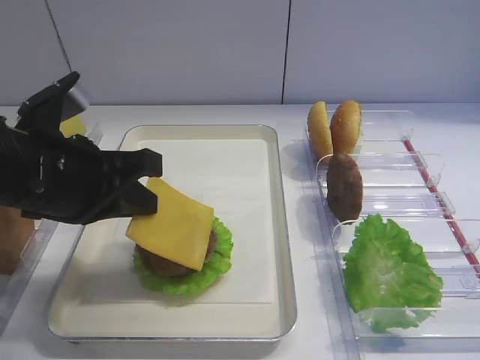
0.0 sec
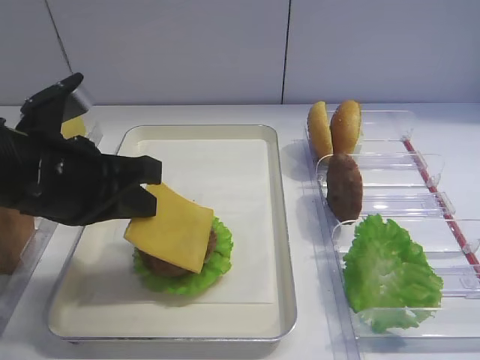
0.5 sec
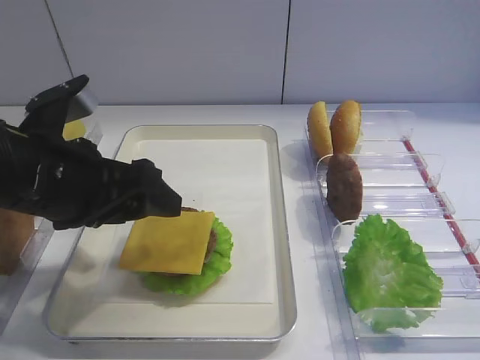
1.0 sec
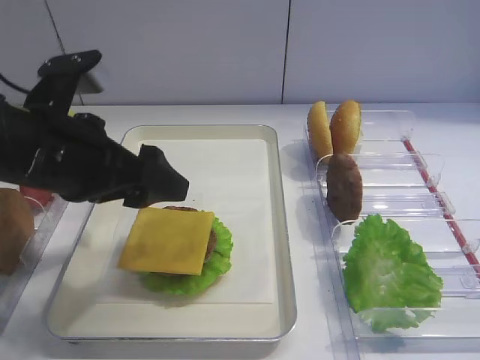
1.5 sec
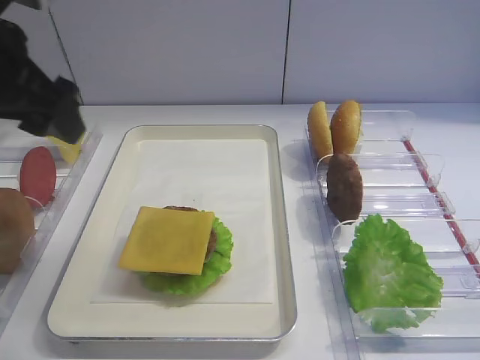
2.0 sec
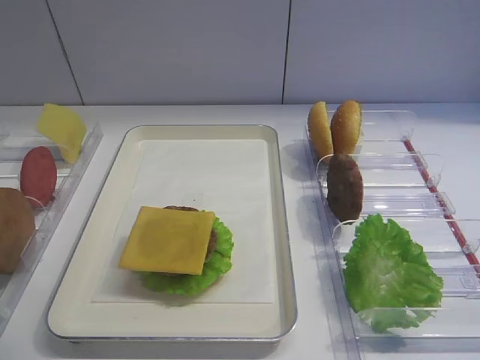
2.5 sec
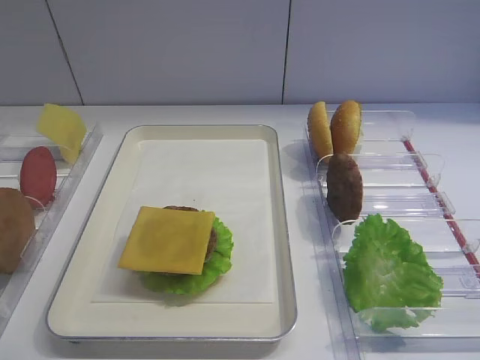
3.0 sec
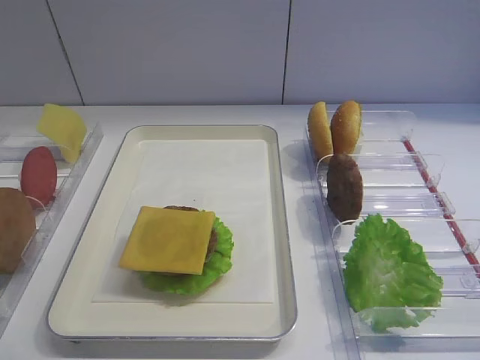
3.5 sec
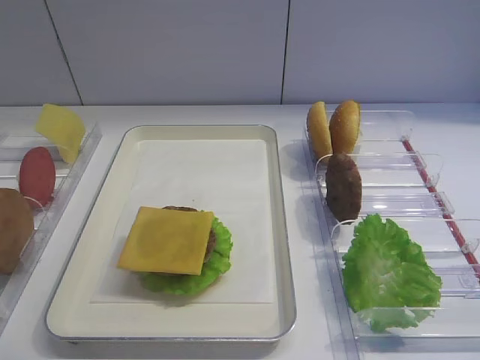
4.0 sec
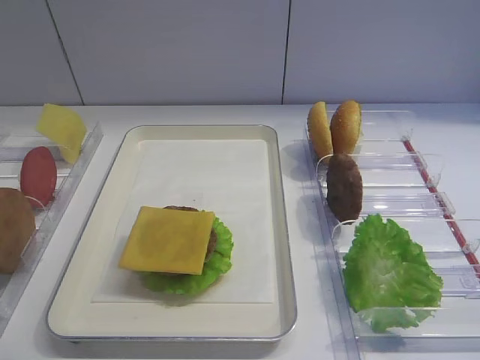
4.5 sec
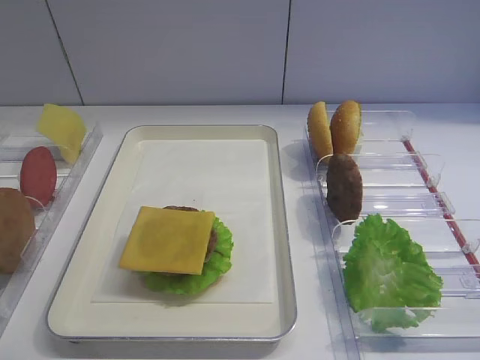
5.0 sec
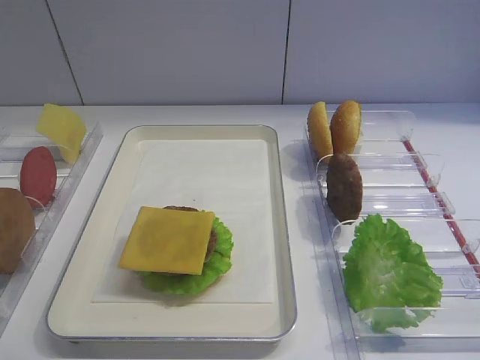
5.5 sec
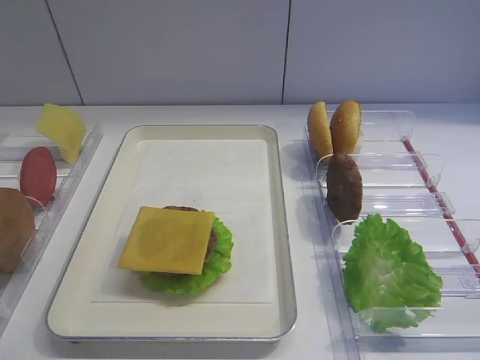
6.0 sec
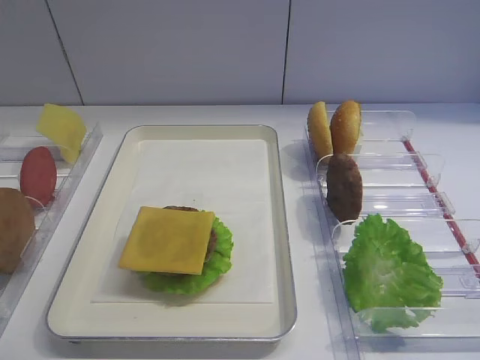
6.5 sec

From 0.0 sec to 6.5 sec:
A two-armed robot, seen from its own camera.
From 0.0 sec to 2.0 sec: The left gripper is displaced upward by approximately 10 cm, and opens up.
From 2.0 sec to 4.5 sec: The left gripper moves backward, some 25 cm.

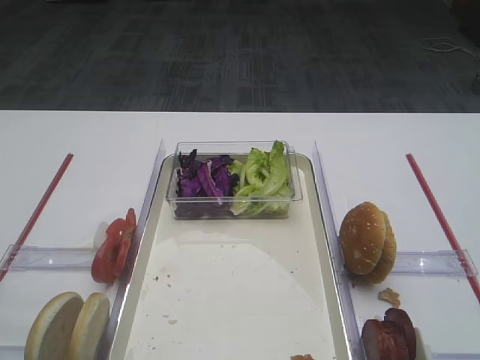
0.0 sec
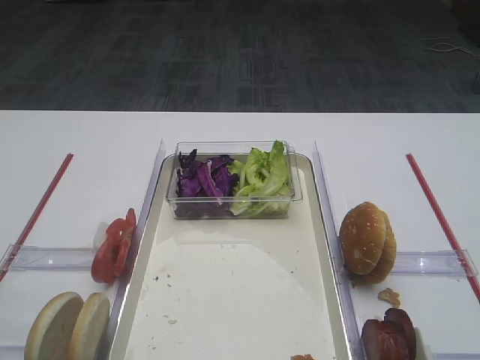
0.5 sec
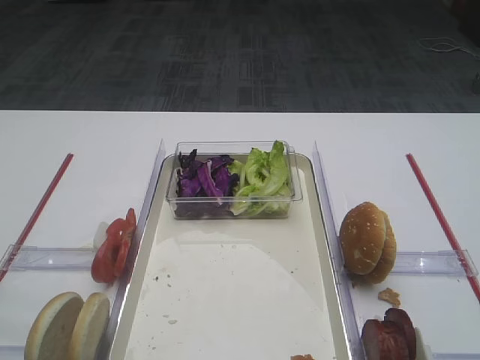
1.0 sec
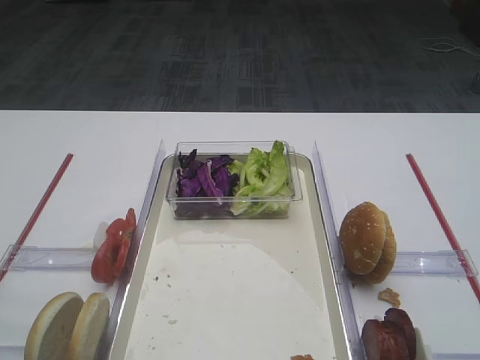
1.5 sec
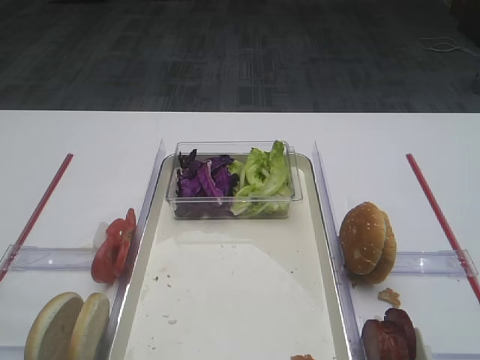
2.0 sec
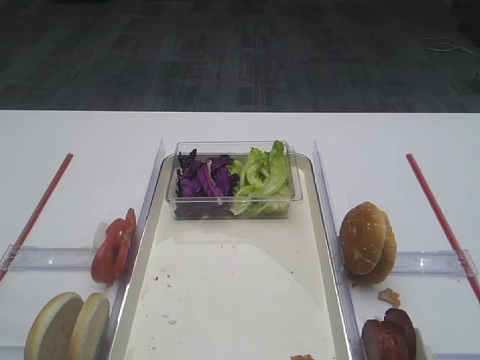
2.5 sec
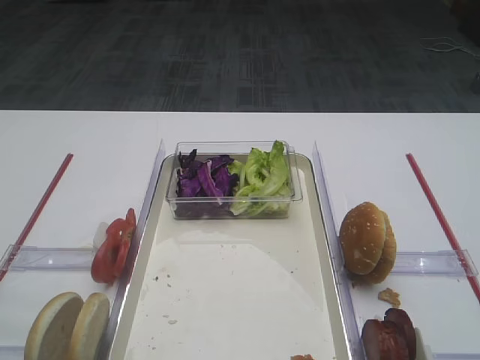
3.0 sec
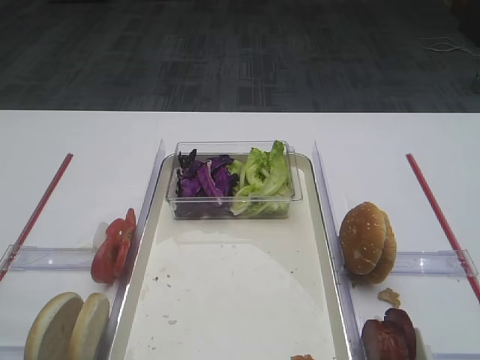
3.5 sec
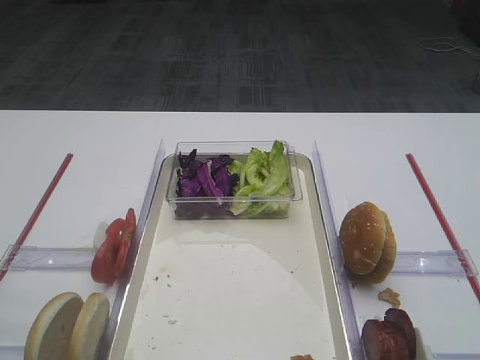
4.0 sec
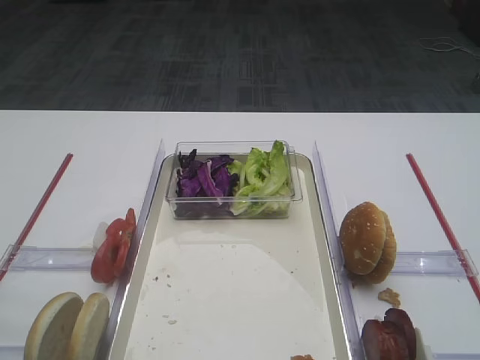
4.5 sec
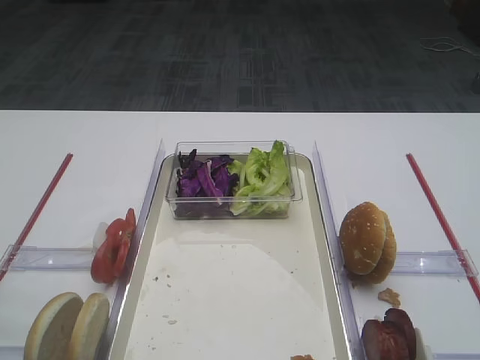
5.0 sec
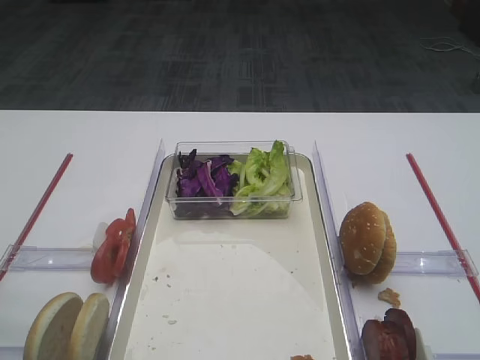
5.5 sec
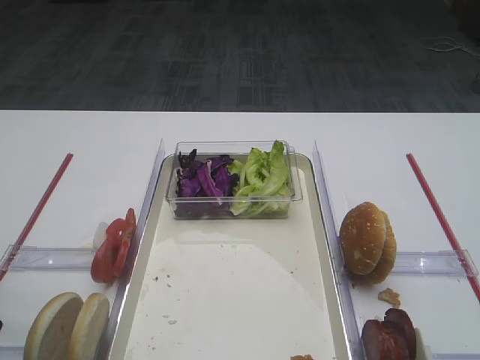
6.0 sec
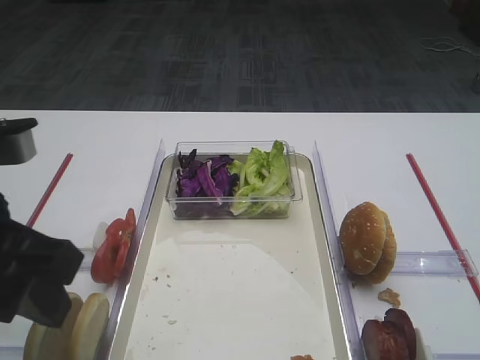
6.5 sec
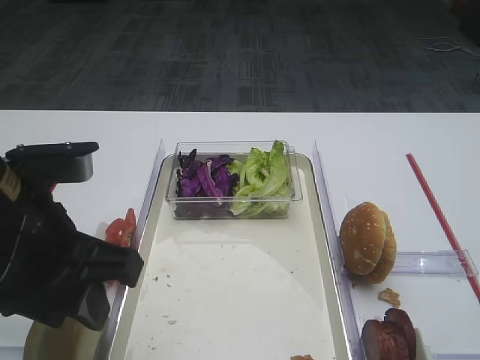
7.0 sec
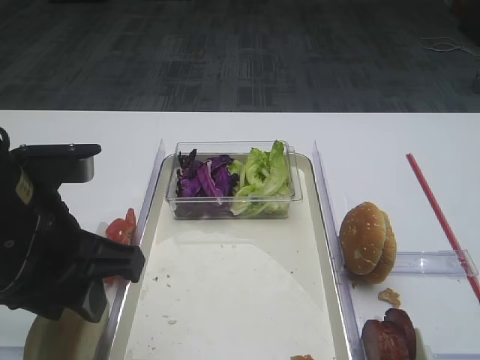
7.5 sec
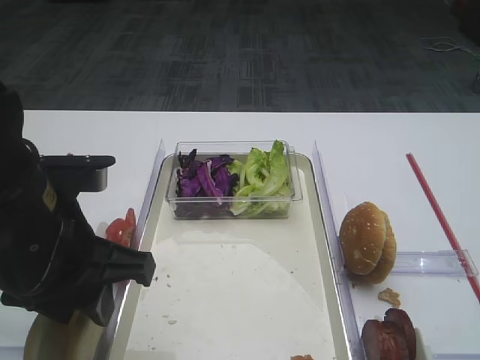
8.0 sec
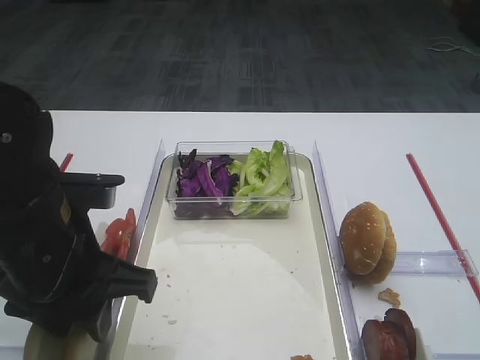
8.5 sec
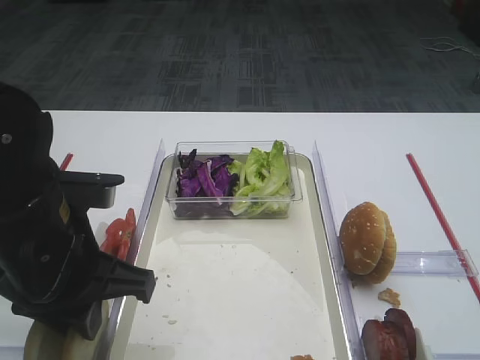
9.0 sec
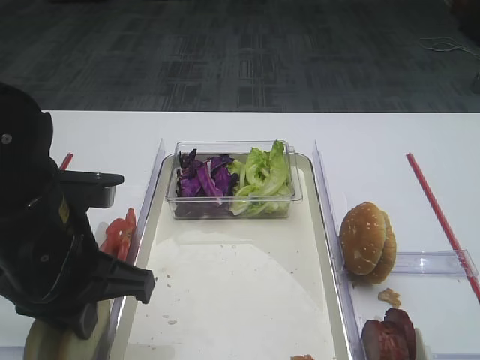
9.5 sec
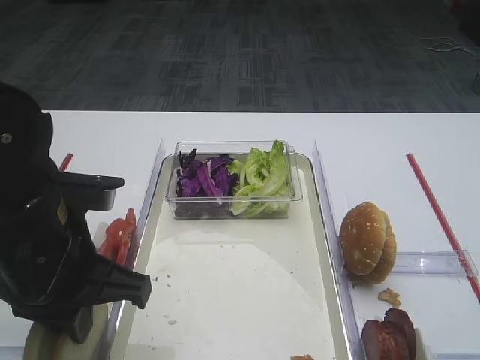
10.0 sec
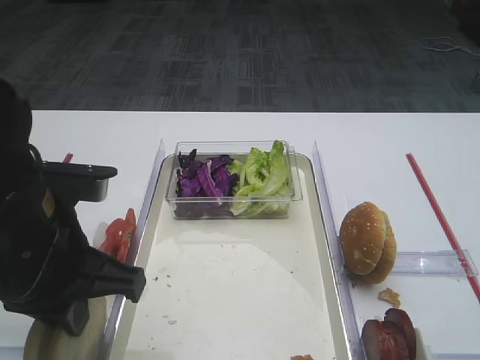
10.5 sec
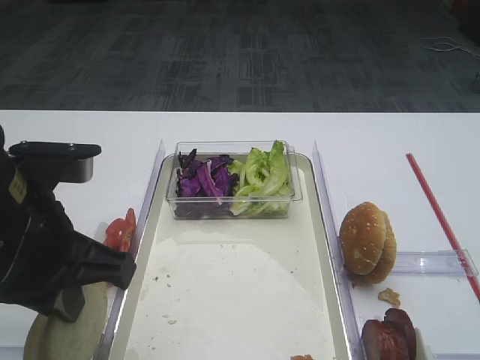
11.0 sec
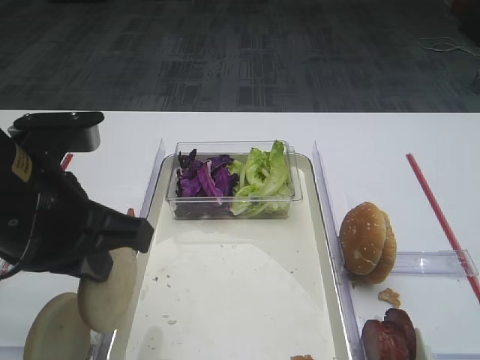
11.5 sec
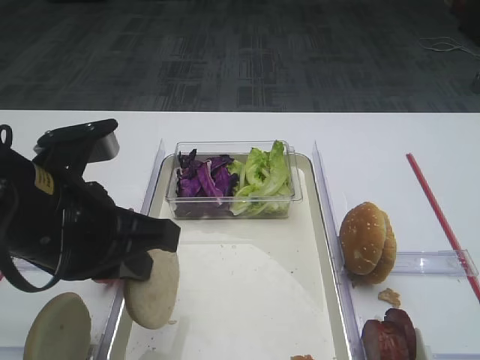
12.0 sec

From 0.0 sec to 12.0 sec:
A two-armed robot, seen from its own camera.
Step, from 0.0 sec to 9.0 sec: Pick up the bread slice with the left gripper.
From 6.0 sec to 8.0 sec: The left gripper goes about 10 cm to the right and forward.
From 8.0 sec to 10.0 sec: The left gripper closes its fingers.

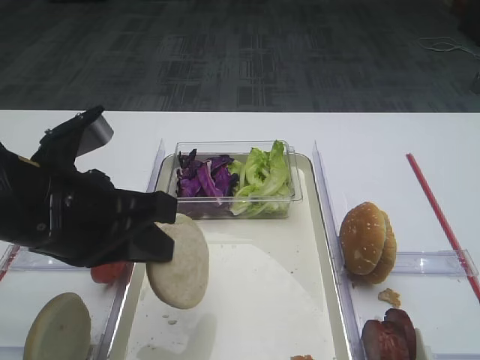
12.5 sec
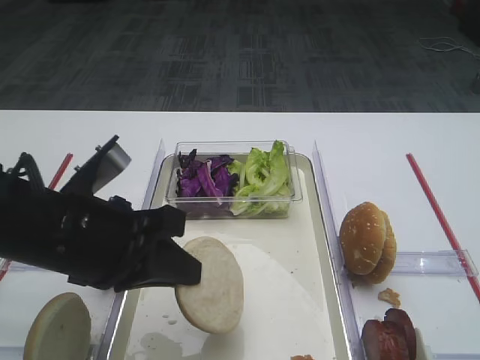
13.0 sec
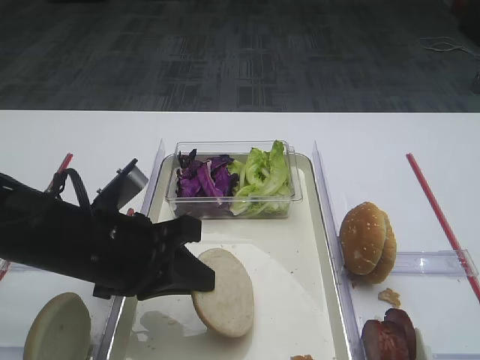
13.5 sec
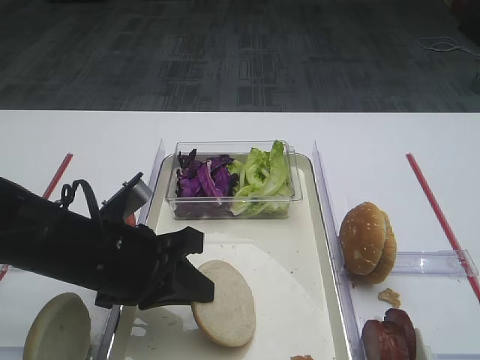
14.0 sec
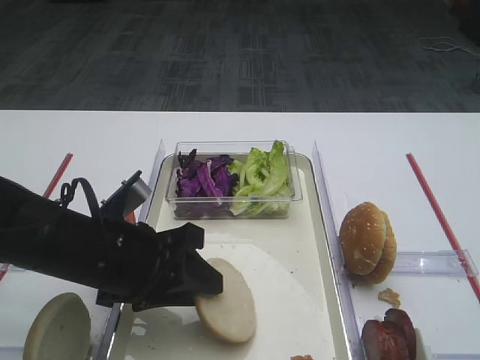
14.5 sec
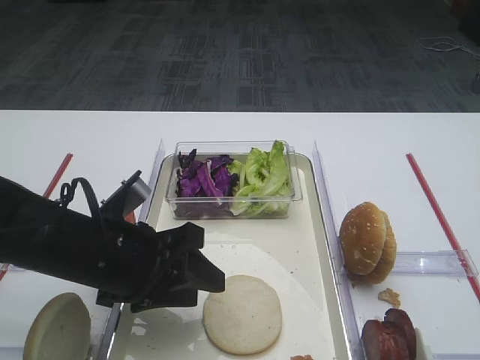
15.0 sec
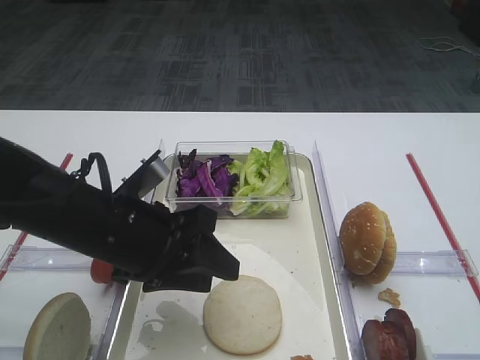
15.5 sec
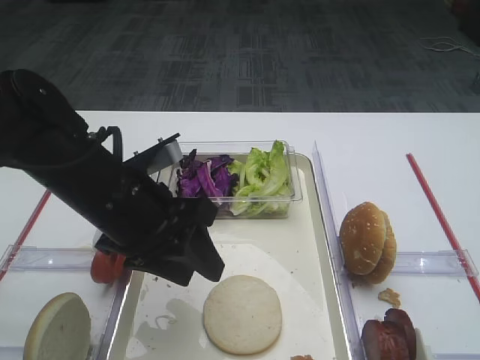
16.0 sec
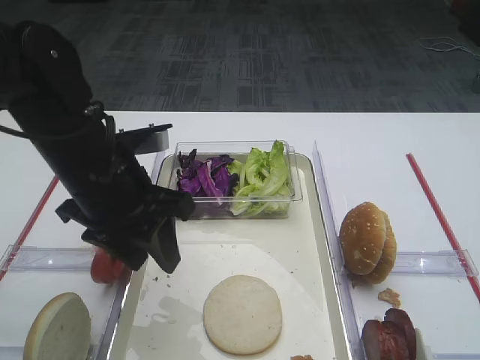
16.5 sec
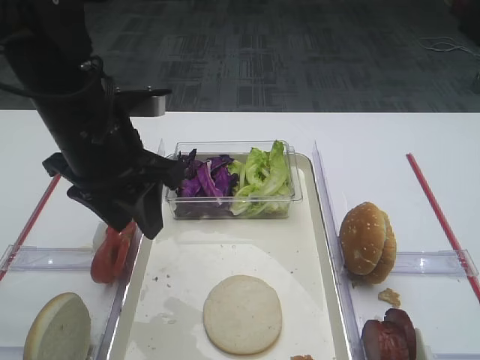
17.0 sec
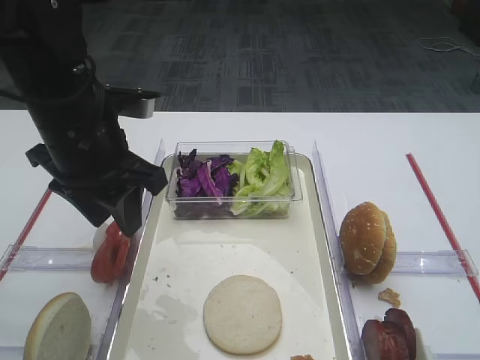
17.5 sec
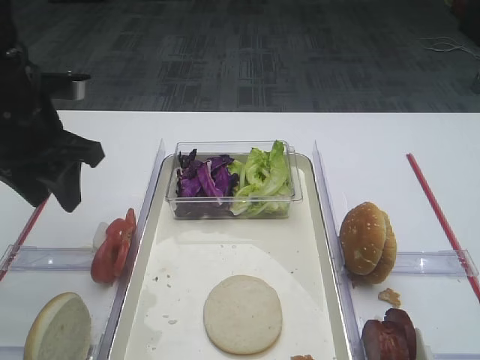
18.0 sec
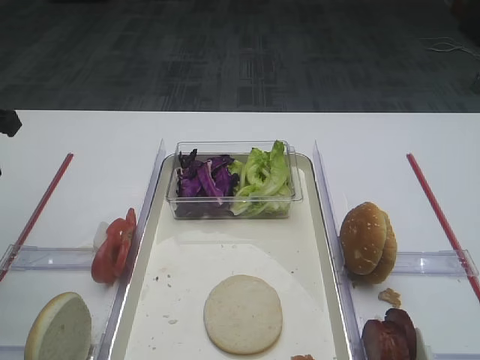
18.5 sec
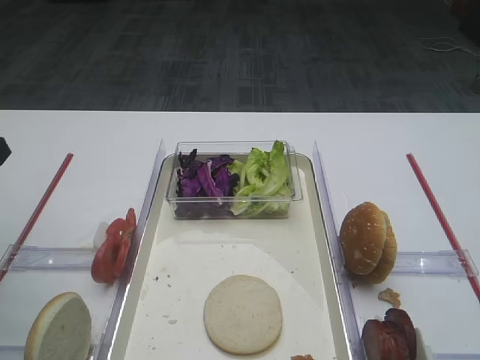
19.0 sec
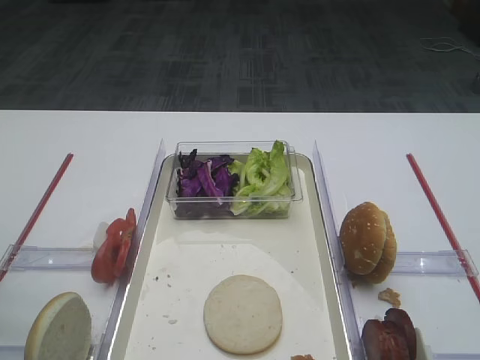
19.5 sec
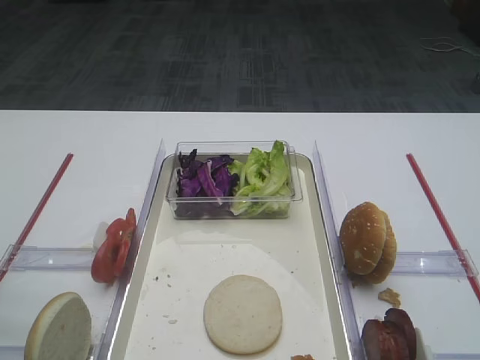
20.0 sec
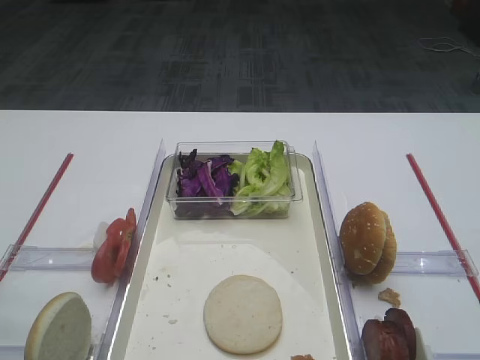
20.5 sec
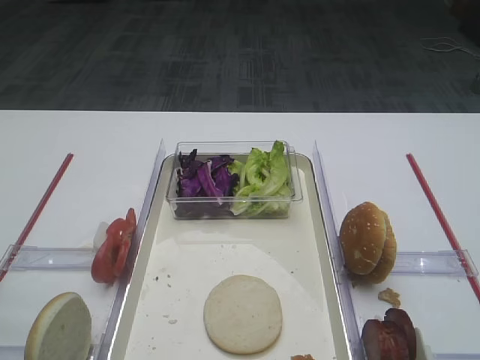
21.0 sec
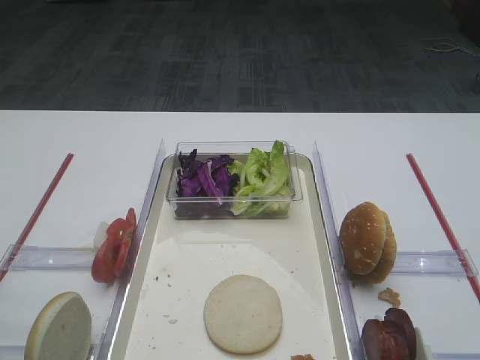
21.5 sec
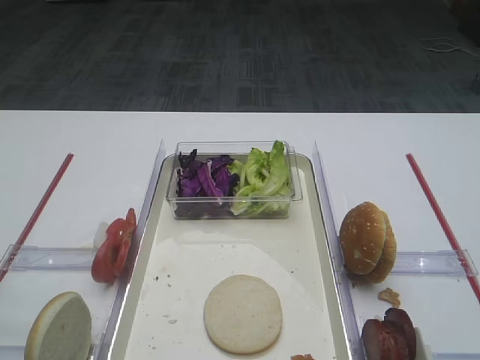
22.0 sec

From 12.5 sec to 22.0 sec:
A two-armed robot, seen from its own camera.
Step, from 12.5 sec to 18.5 sec: Place the bread slice on the tray with the left gripper.
From 12.5 sec to 14.5 sec: The left gripper heads downward, covering approximately 10 cm, and opens.
From 14.5 sec to 16.5 sec: The left gripper is displaced upward by about 5 cm.
From 16.5 sec to 18.0 sec: The left gripper heads to the left, covering about 10 cm.
From 18.0 sec to 20.0 sec: The left gripper moves backward and to the left, some 15 cm.
